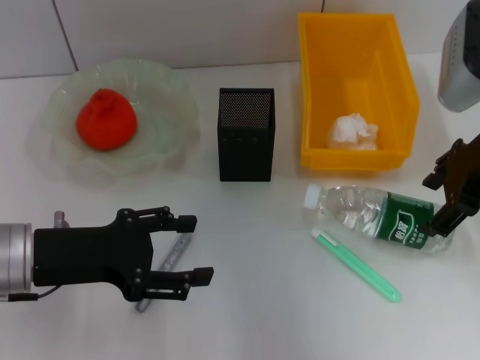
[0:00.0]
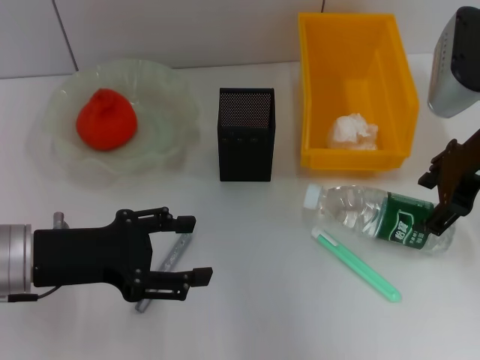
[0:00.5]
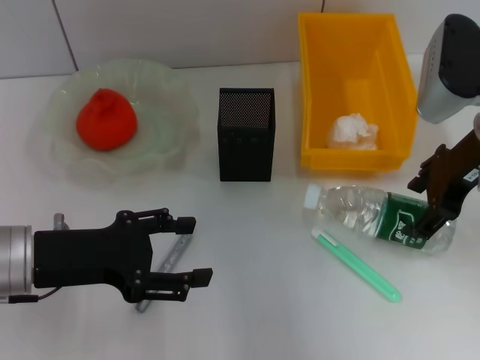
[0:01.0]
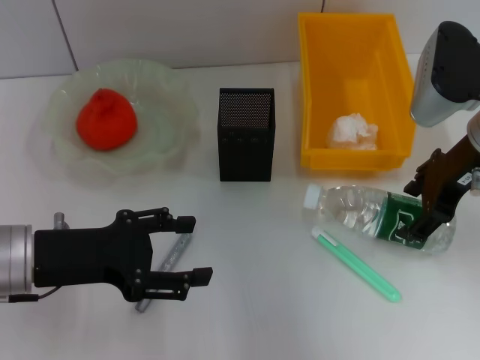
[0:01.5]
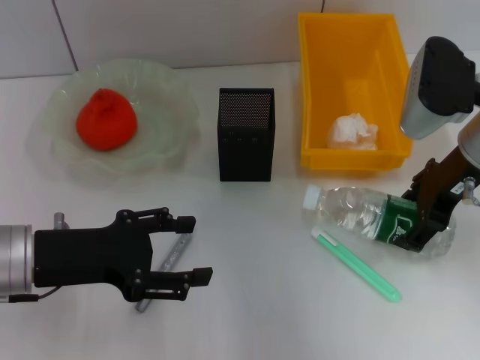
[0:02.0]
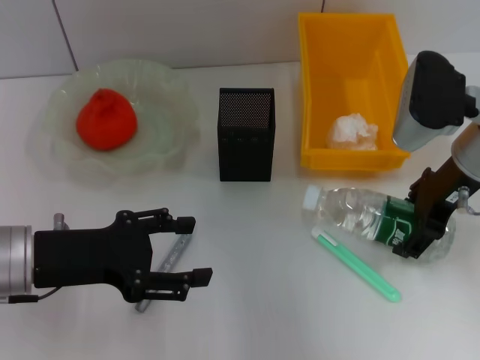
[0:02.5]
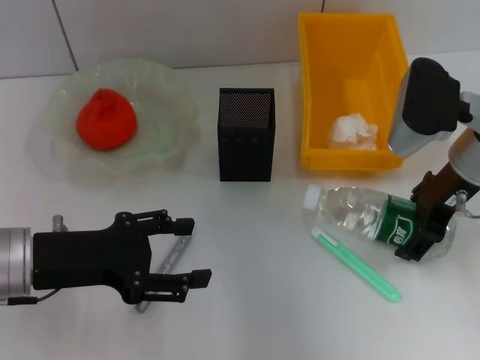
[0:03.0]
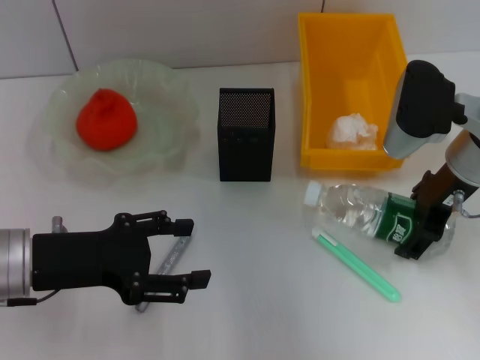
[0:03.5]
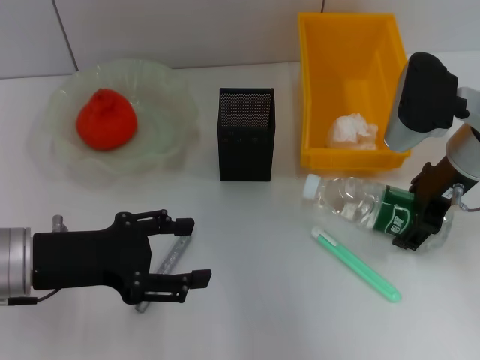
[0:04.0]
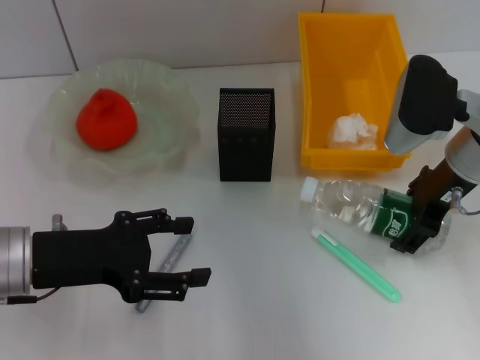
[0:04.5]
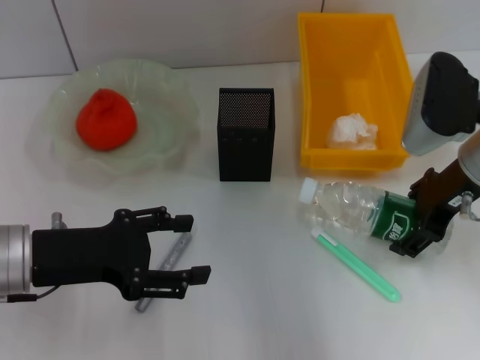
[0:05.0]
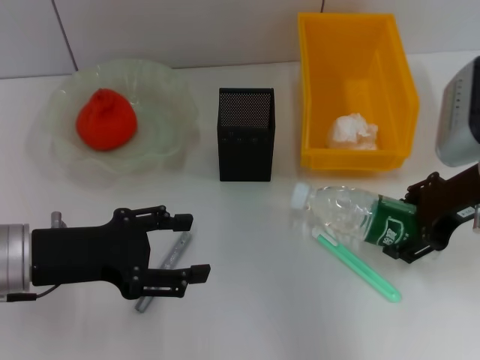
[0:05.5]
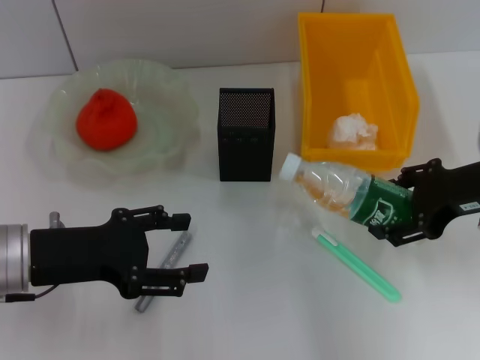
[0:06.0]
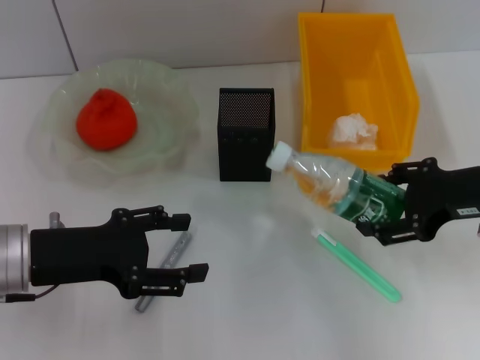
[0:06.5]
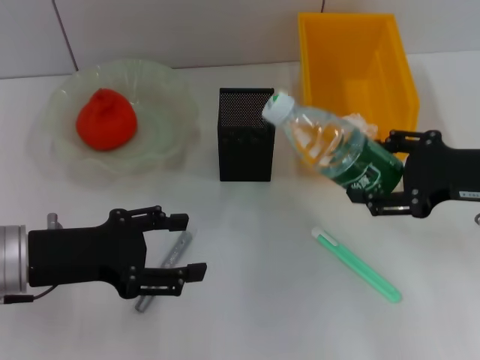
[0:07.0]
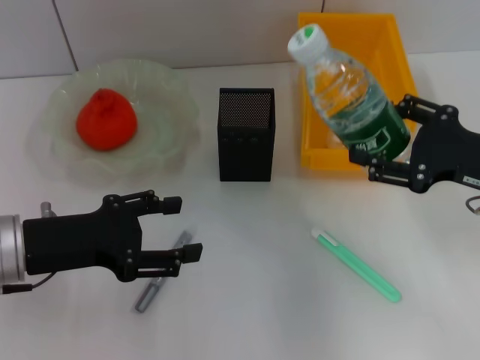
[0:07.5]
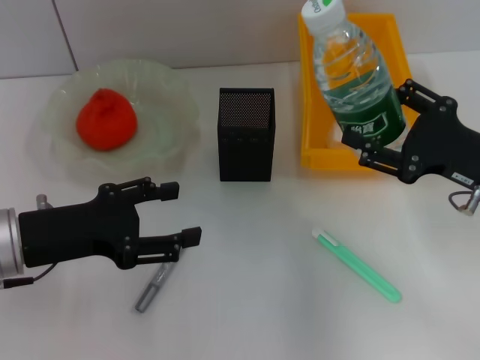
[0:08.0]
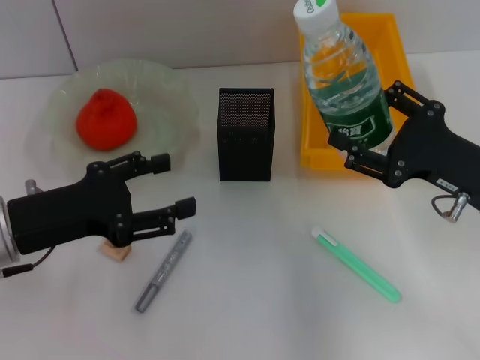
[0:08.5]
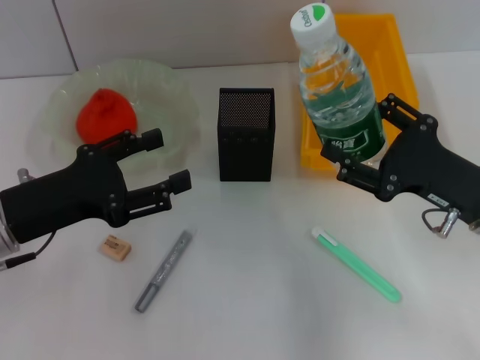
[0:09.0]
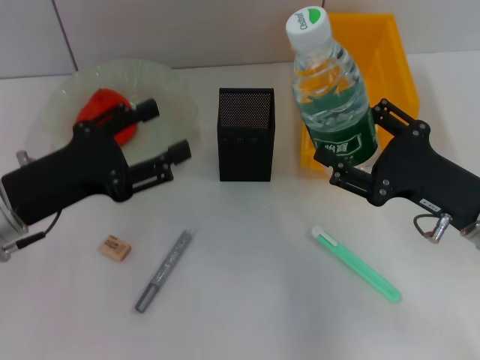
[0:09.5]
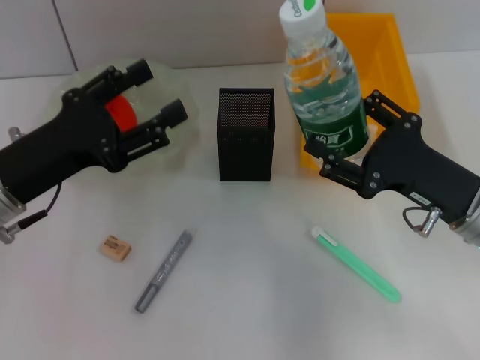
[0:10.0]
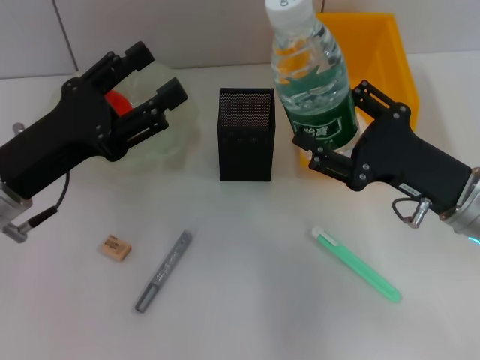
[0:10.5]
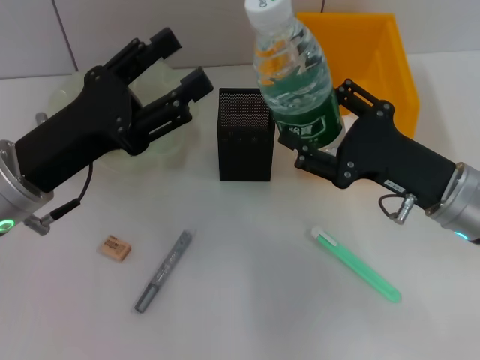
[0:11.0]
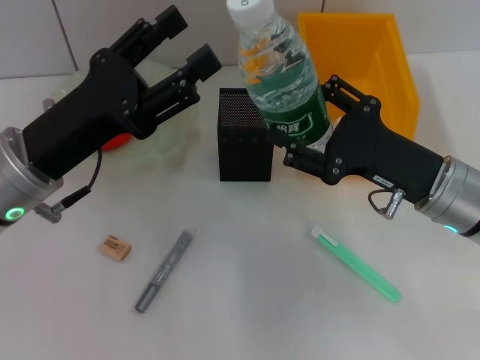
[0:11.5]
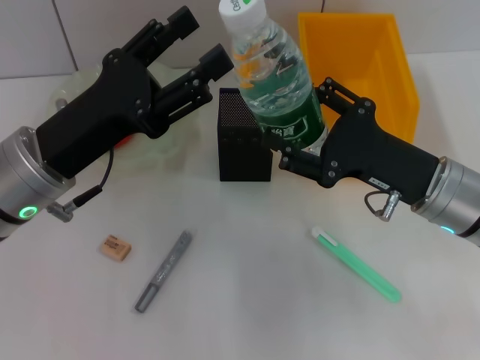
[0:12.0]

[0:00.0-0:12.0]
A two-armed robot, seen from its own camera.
Step, 0:00.0 to 0:03.5: Grab the water bottle with the right hand.
0:00.0 to 0:02.0: The grippers make only small movements.
0:02.0 to 0:04.0: The grippers stay close to where they were, moving slightly.
0:04.0 to 0:06.0: The right gripper is displaced backward by some 5 cm.
0:06.0 to 0:08.0: The right gripper is displaced downward by roughly 5 cm.
0:08.0 to 0:10.0: The right gripper ends up roughly 5 cm from where it was.

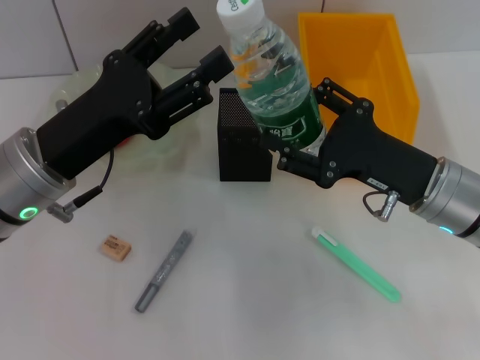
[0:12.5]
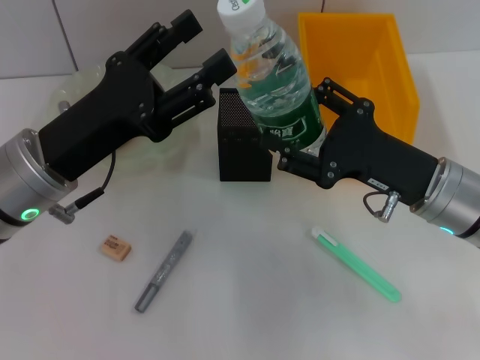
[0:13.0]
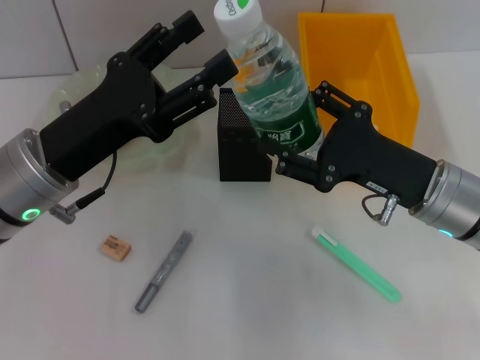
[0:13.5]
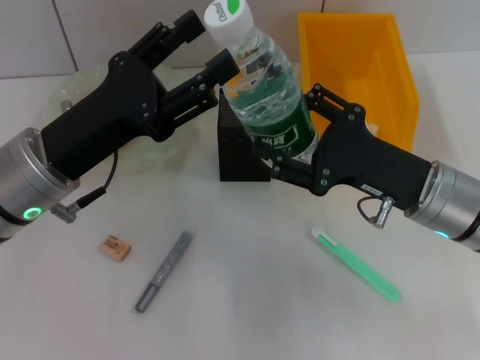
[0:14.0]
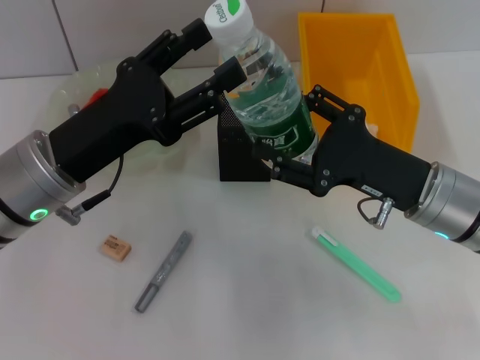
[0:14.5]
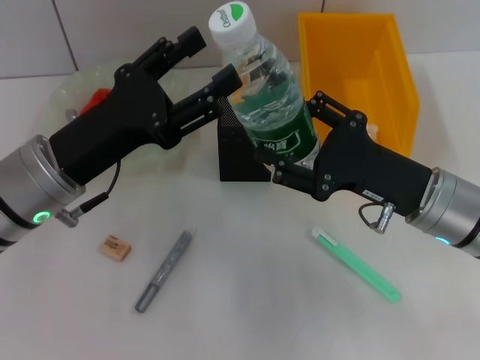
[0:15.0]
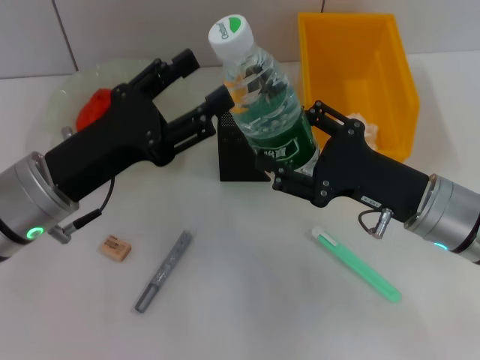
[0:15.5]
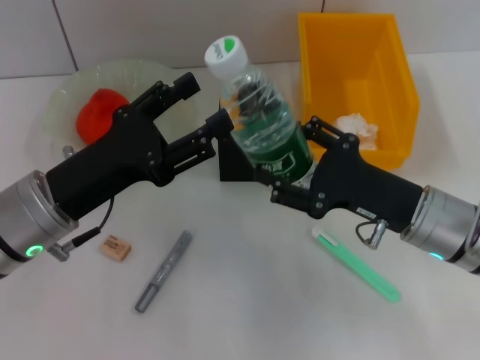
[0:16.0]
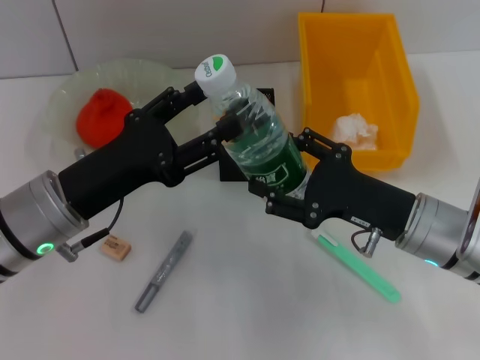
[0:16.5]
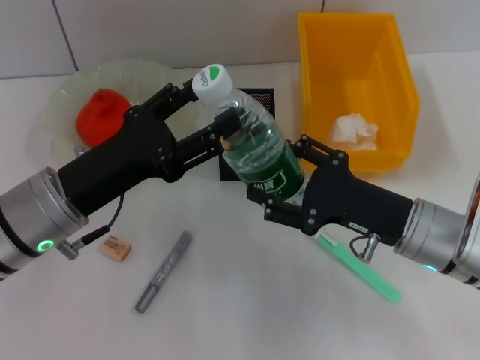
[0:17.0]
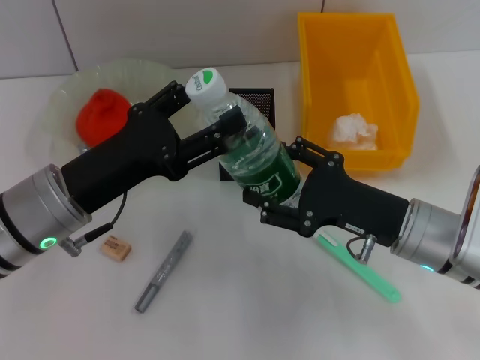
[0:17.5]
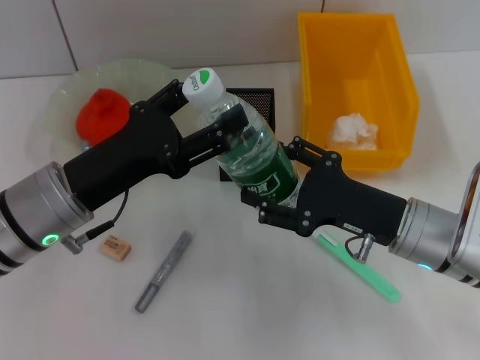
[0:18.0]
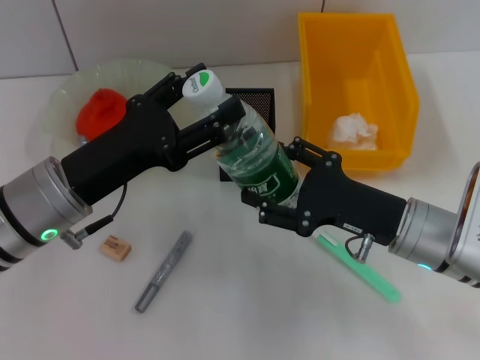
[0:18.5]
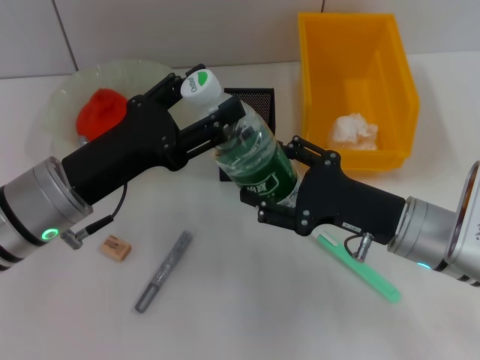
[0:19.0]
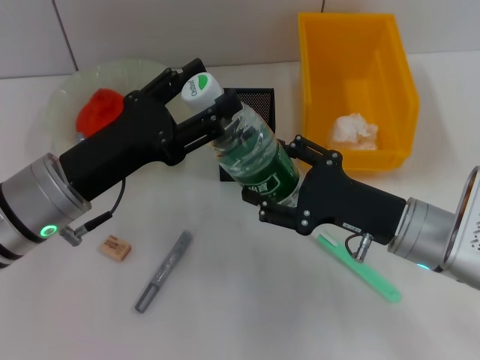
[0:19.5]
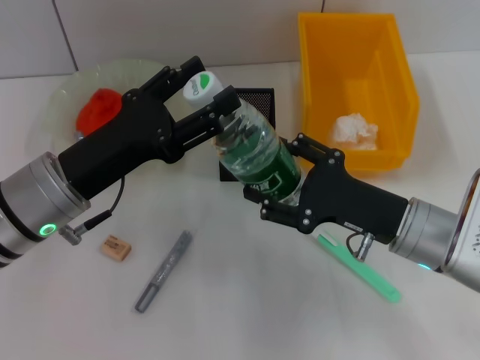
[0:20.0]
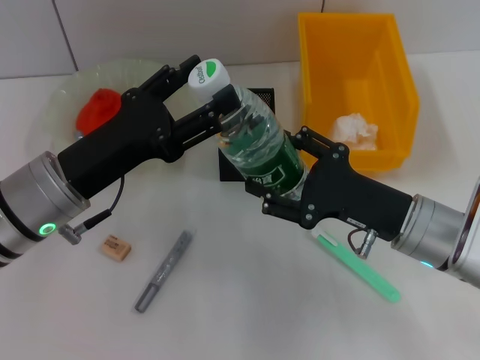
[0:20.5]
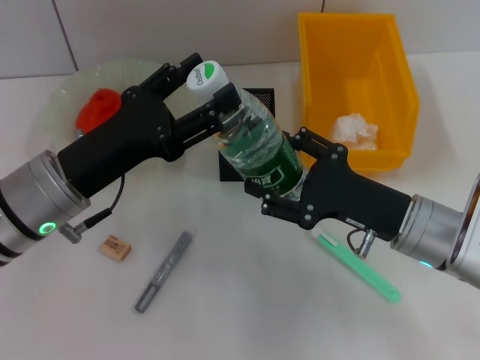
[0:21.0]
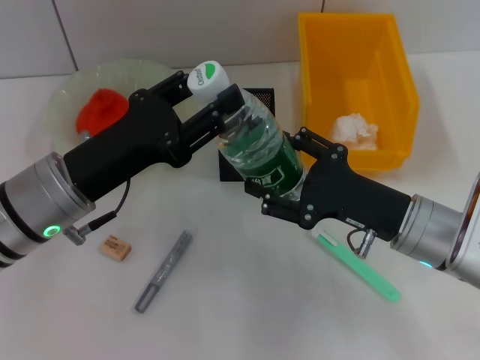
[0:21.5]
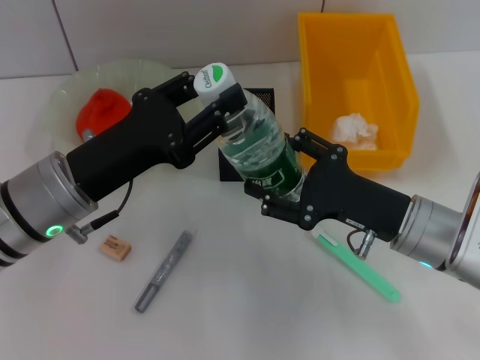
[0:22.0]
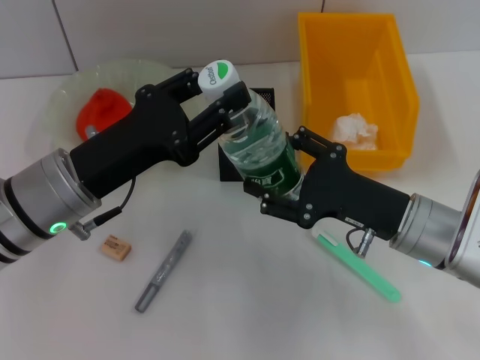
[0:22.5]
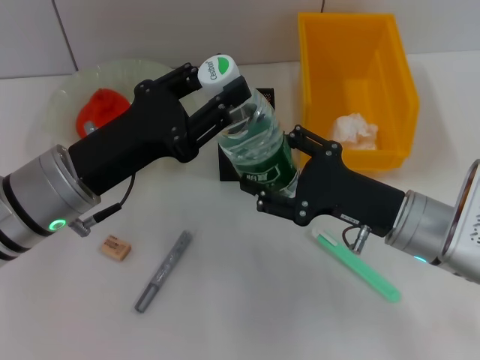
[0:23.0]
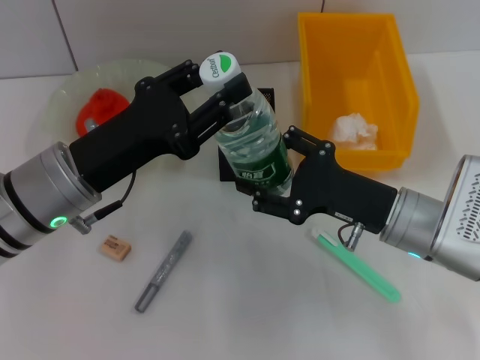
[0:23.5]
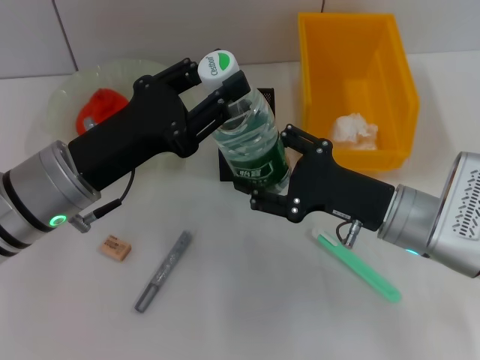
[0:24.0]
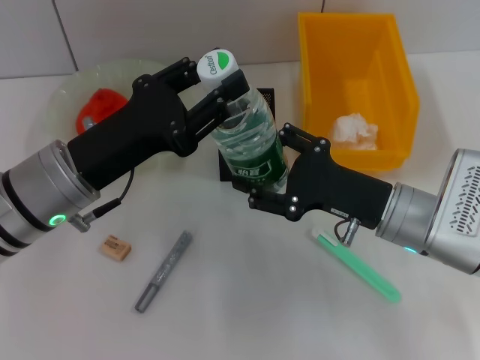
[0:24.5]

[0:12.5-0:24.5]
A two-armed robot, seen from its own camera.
0:12.5 to 0:14.5: Both grippers stay put.
0:16.5 to 0:18.5: Both grippers stay about where they are.
0:18.5 to 0:20.5: The grippers stay close to where they were, moving slightly.
0:20.5 to 0:22.5: The left gripper closes its fingers.
0:22.5 to 0:24.5: The grippers stay close to where they were, moving slightly.

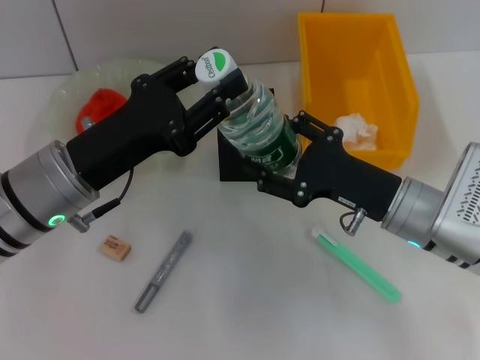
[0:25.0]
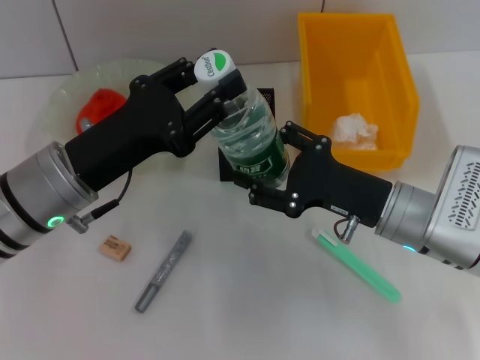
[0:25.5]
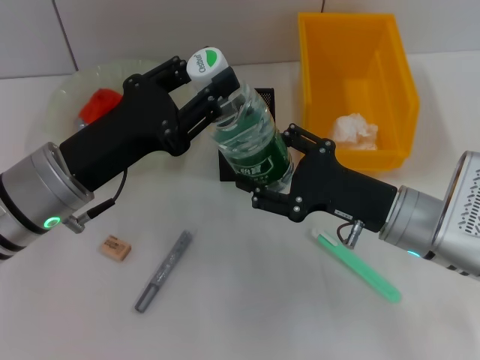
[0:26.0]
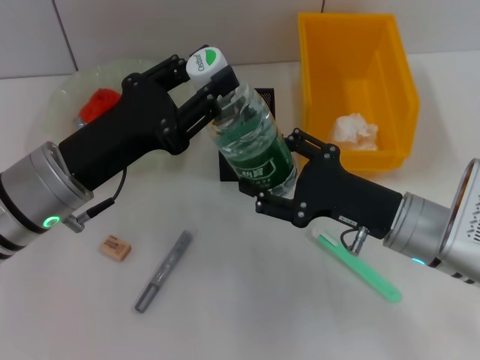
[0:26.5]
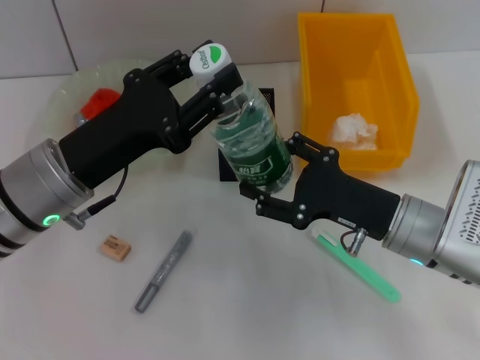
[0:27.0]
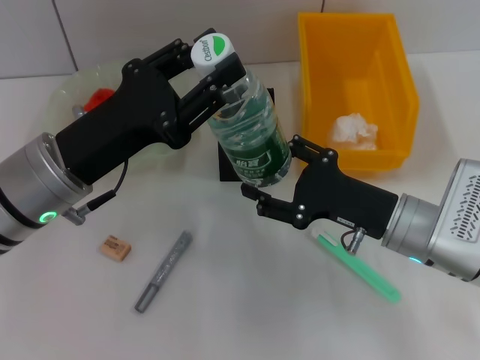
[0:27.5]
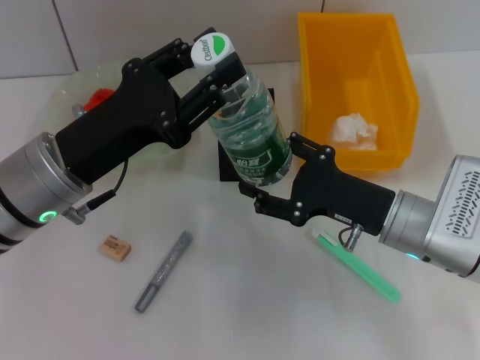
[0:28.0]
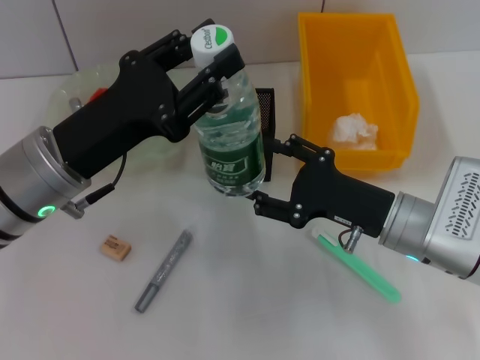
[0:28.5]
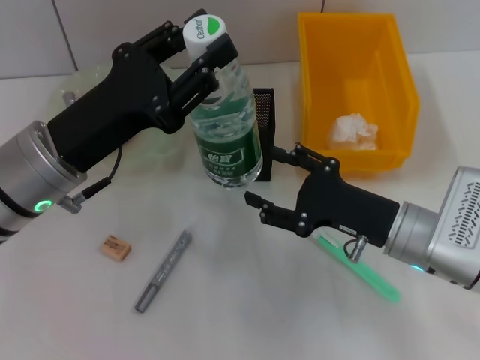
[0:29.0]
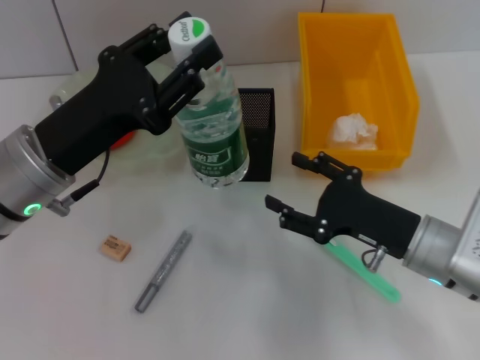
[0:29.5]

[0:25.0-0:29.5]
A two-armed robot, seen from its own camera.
Step, 0:25.0 to 0:27.0: Pass the water bottle from the right hand to the left hand.
0:25.0 to 0:27.0: There are only small adjustments of the grippers.
